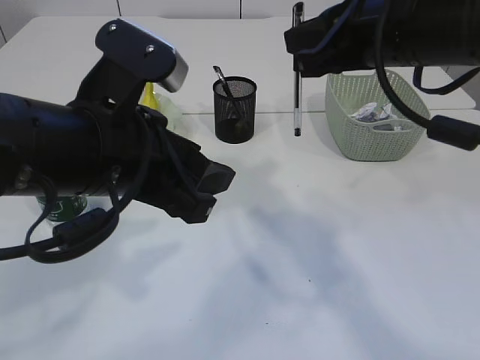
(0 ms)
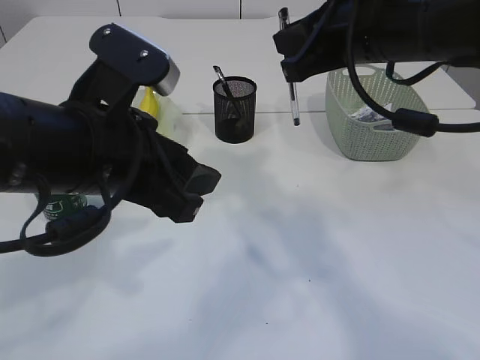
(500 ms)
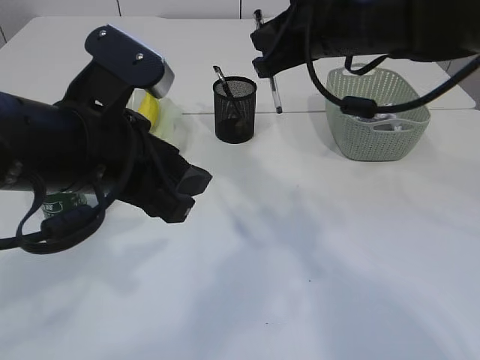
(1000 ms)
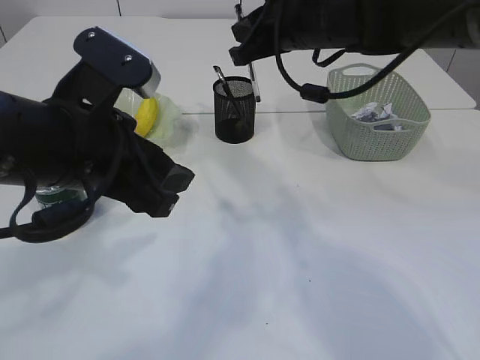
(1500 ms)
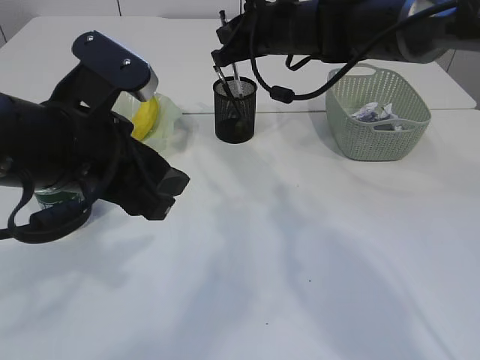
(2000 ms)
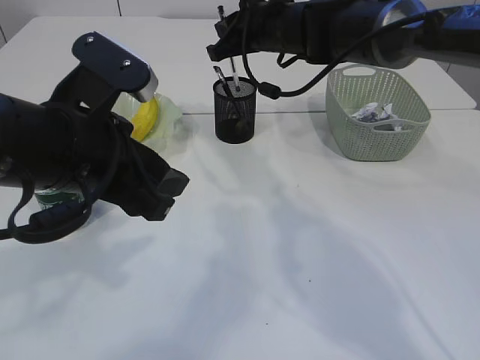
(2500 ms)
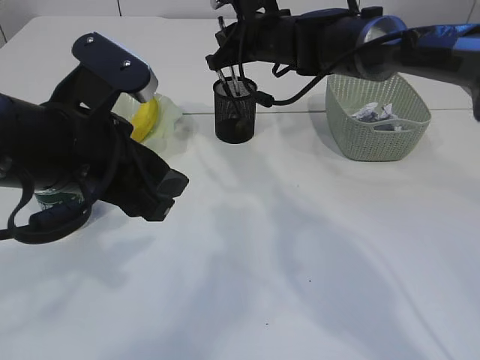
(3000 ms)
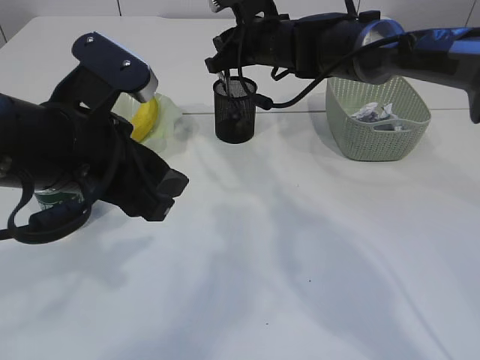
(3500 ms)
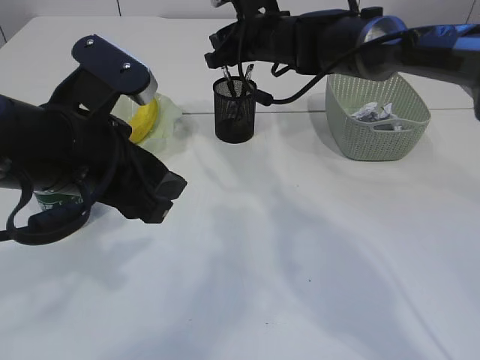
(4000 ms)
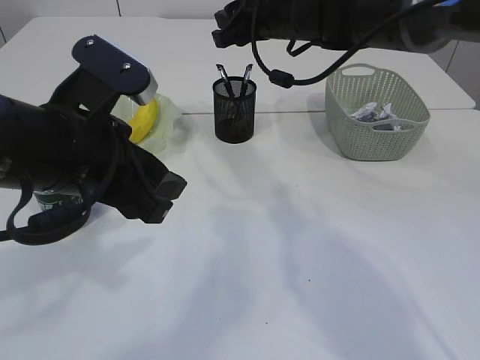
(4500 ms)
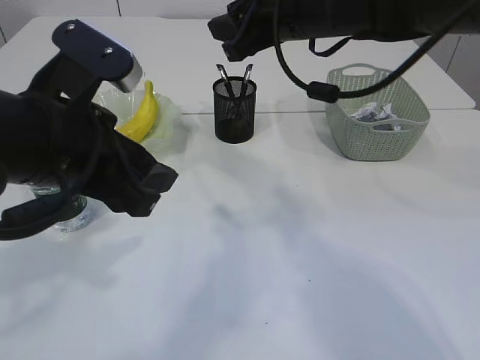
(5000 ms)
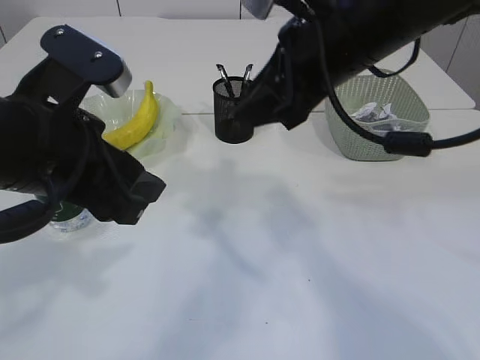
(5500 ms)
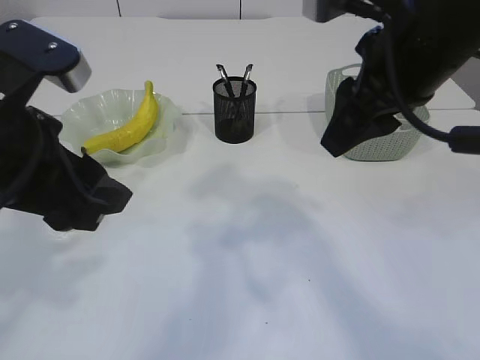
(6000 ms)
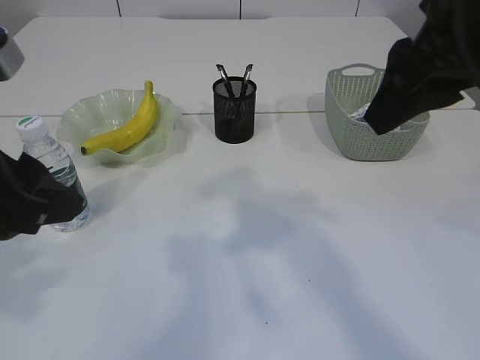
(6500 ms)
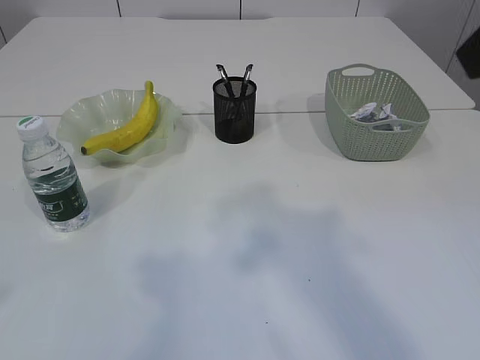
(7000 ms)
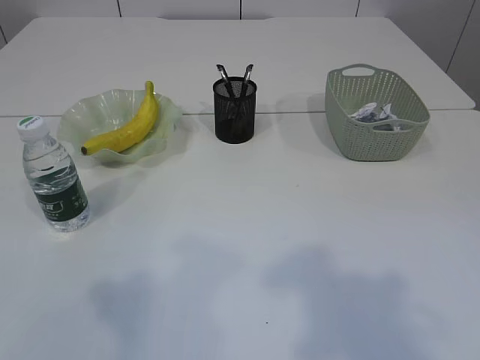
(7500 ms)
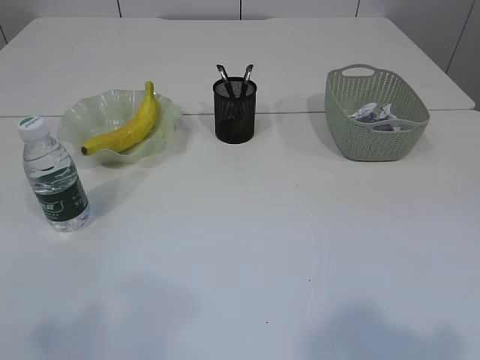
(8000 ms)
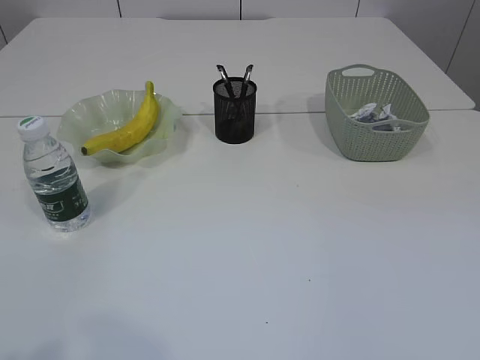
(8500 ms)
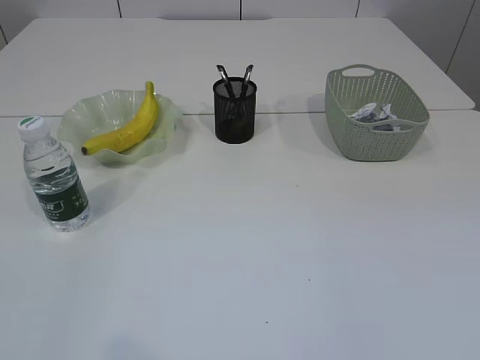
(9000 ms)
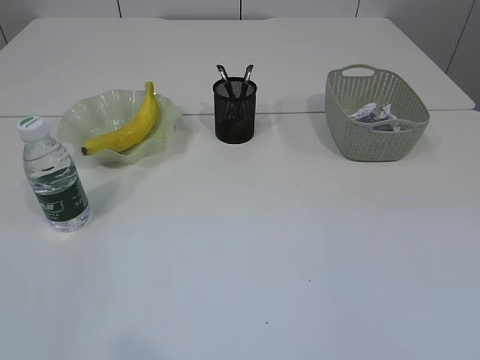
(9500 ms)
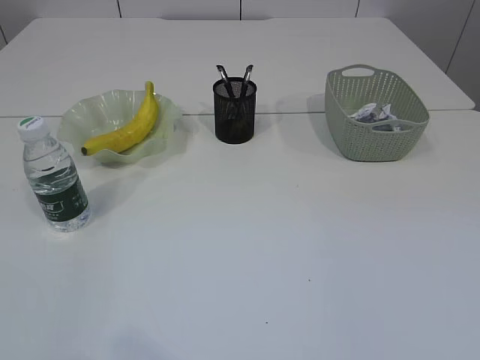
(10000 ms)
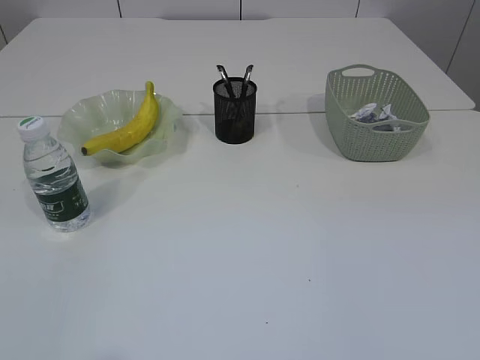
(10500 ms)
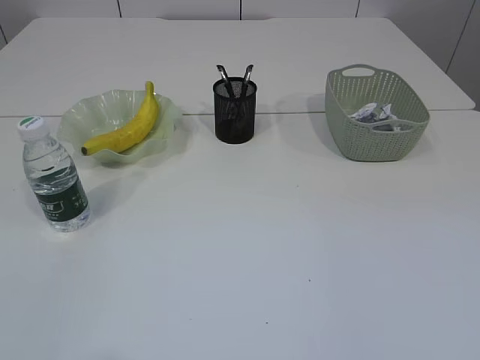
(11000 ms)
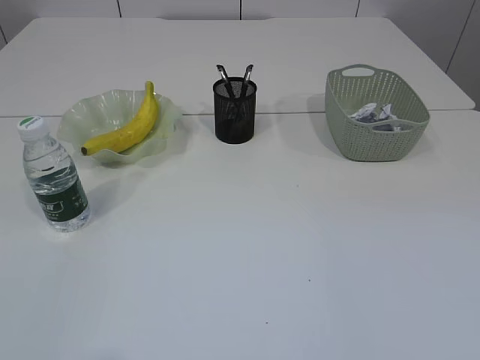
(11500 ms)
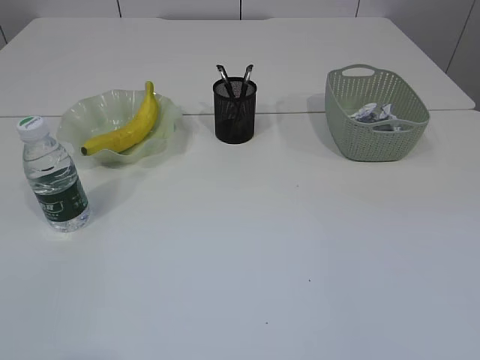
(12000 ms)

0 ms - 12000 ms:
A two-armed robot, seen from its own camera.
Step, 0 ms - 4000 ms: Place the pen into the pen holder.
0 ms - 2000 ms: The right gripper goes roughly 15 cm forward.
2000 ms - 4000 ms: The right gripper moves about 5 cm, and opens.
4000 ms - 6000 ms: The right gripper shifts roughly 25 cm backward and upward; the left gripper moves roughly 5 cm.
6000 ms - 8000 ms: The left gripper shifts some 20 cm backward and to the left. Meanwhile the right gripper is displaced backward and to the right by about 25 cm.

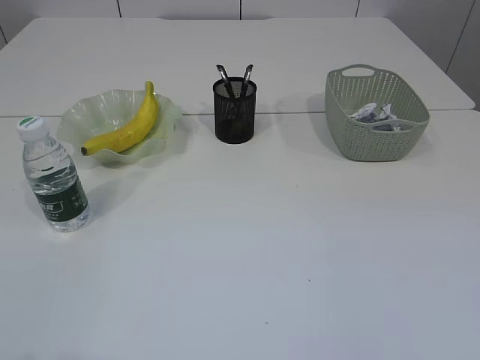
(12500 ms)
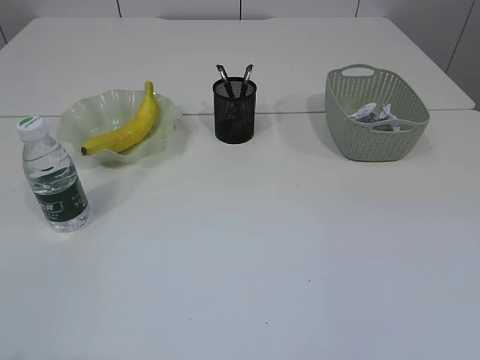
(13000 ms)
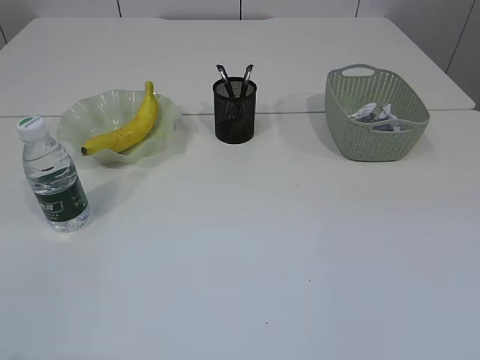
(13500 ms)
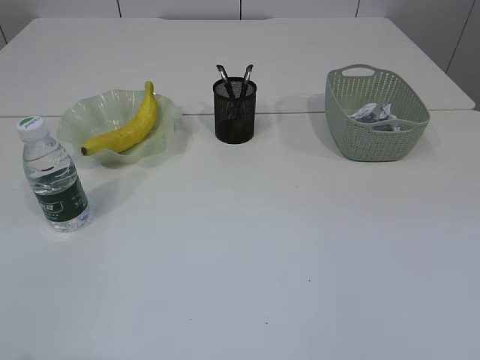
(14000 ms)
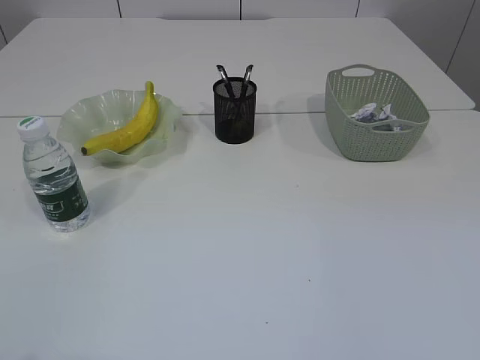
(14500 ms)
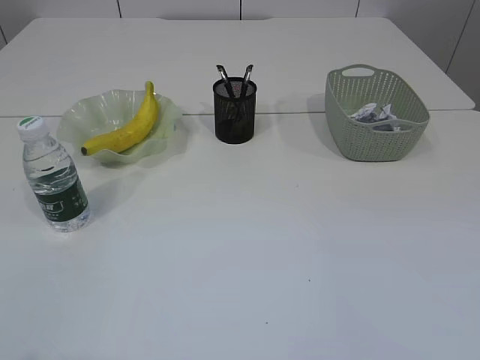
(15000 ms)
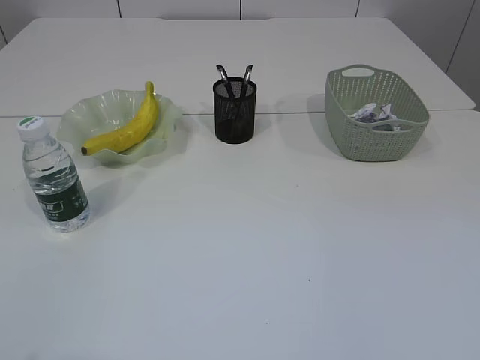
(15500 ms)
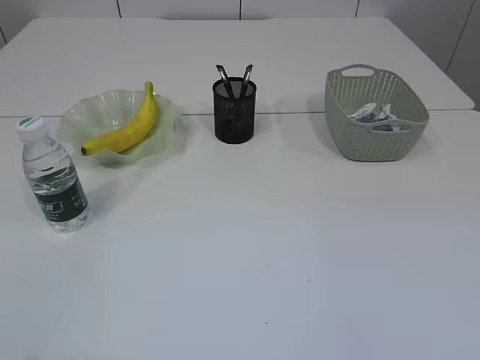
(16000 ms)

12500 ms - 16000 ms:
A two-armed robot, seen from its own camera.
14500 ms - 16000 ms: The two grippers keep their place.

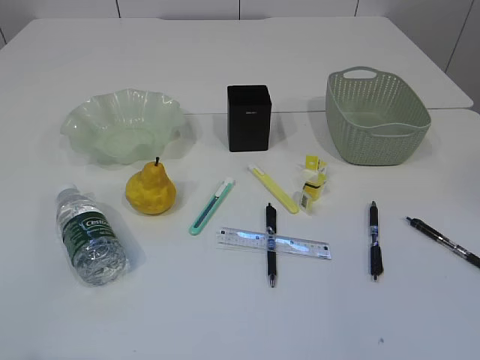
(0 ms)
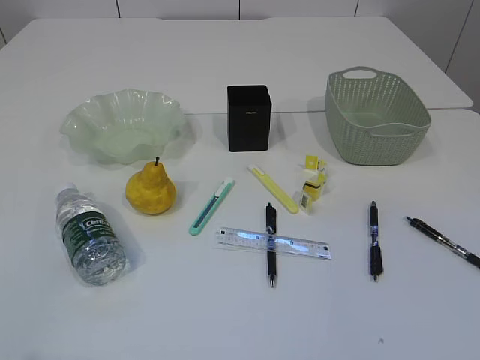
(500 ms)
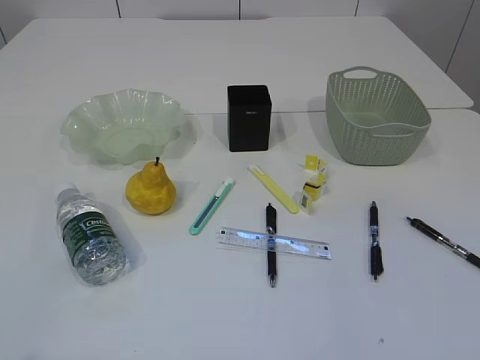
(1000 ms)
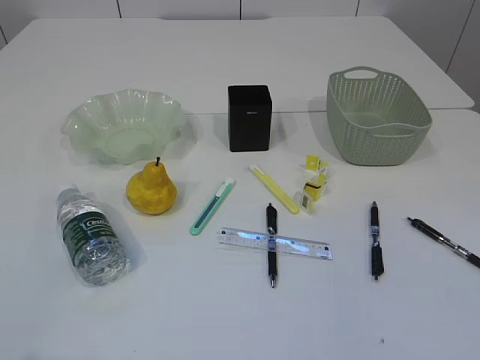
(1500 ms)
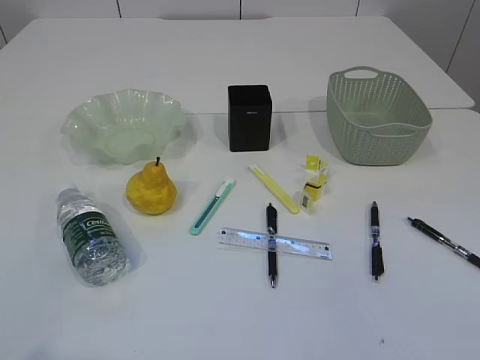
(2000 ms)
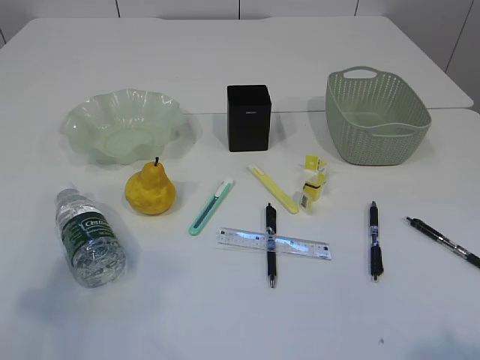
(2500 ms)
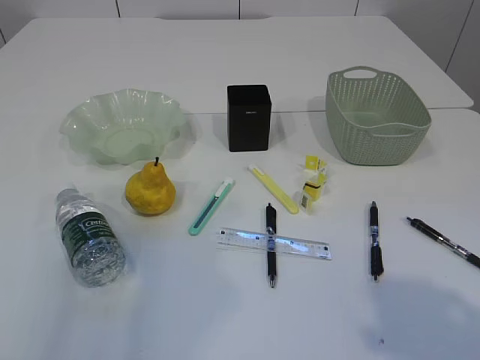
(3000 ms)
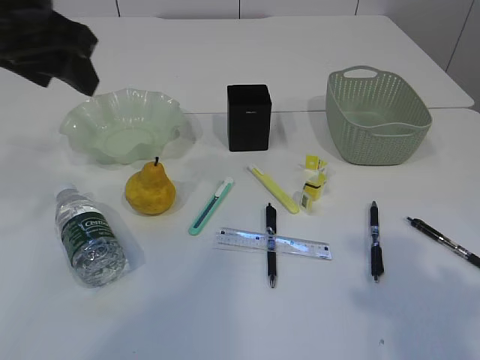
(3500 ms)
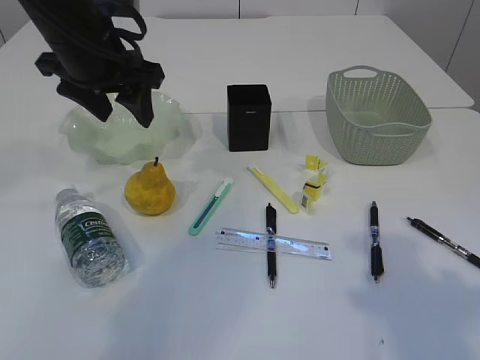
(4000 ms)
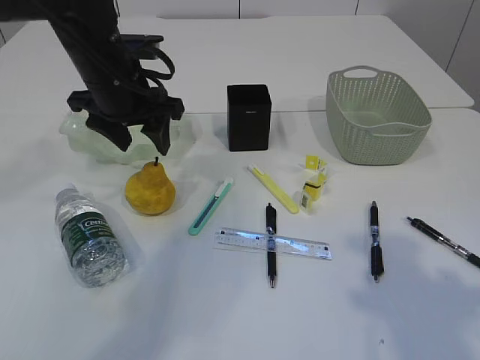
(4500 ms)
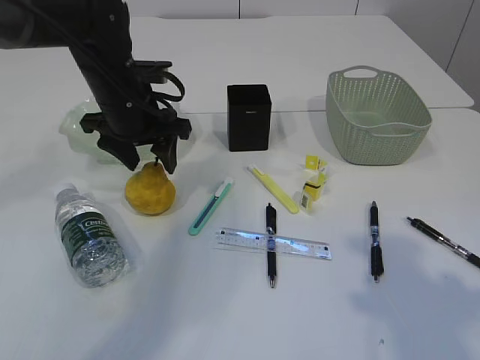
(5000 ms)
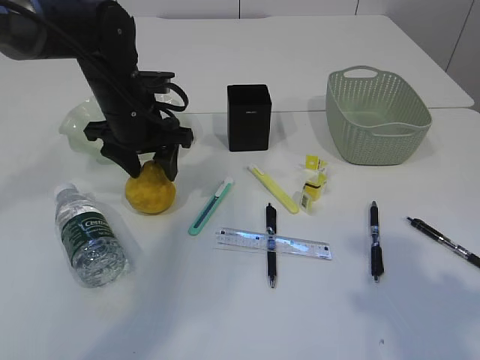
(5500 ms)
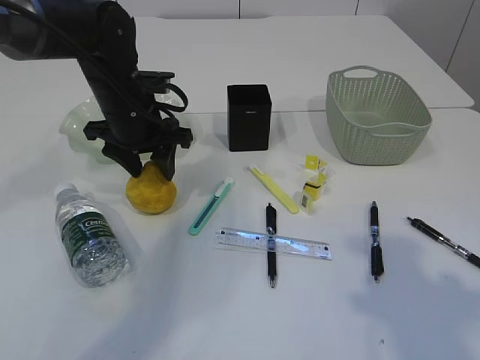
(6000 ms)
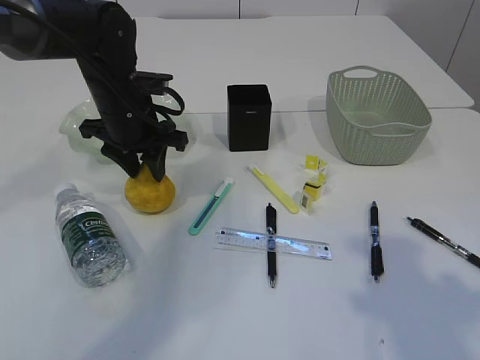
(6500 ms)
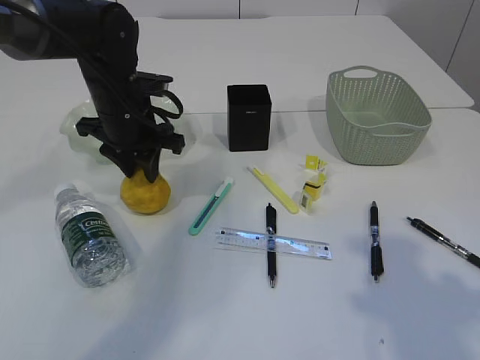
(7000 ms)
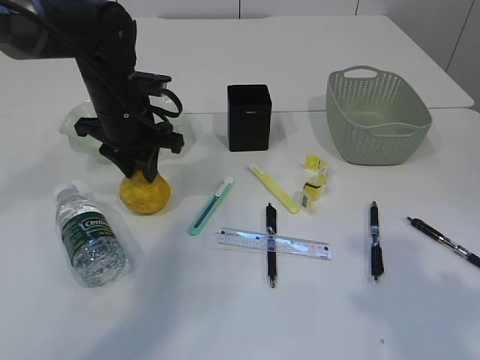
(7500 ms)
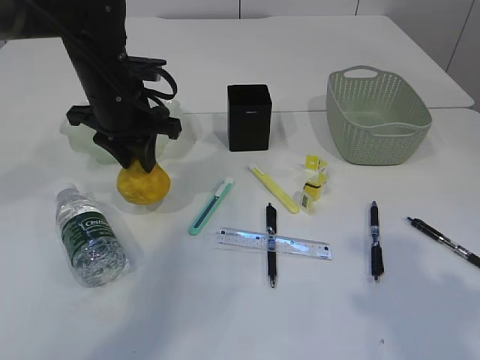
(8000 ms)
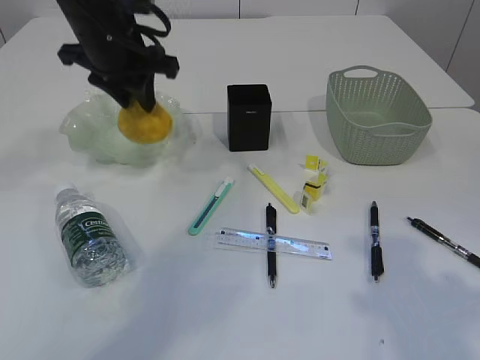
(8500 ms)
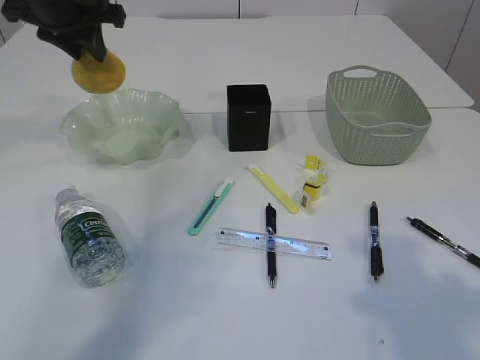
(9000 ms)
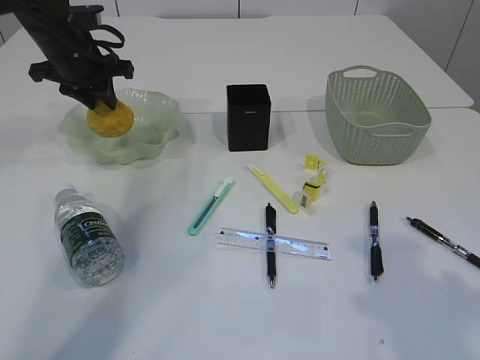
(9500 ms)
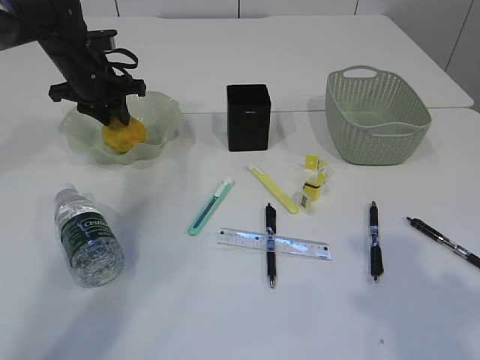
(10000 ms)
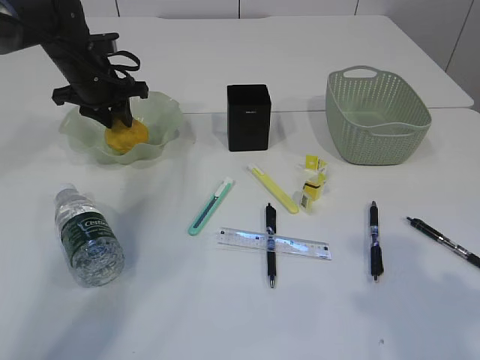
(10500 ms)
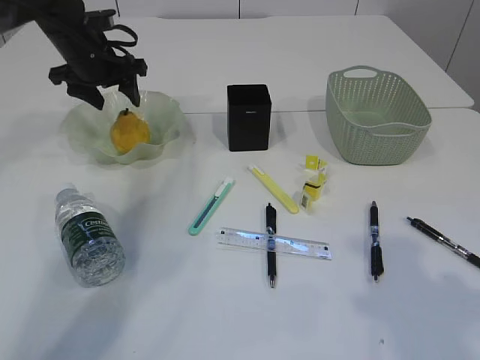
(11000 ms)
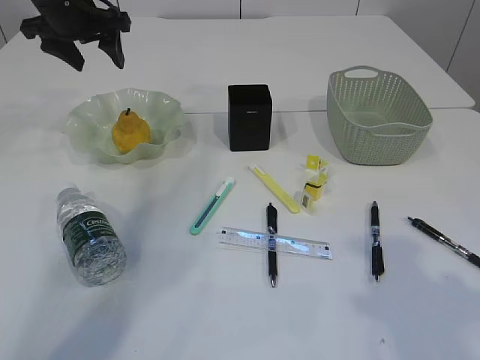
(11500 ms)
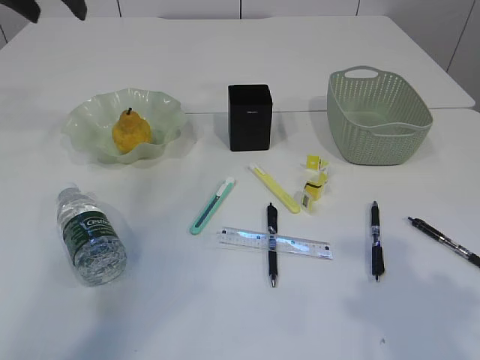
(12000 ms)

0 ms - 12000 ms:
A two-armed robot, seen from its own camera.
Step, 8500 ms - 11500 ms: Place the pear in the plate.
2000 ms - 4000 ms: The left gripper moves forward and to the right, about 40 cm. Meanwhile the right gripper shifts roughly 15 cm forward.
4000 ms - 6000 ms: The left gripper heads downward, covering some 10 cm.
6000 ms - 8000 ms: The left gripper closes.
8000 ms - 10000 ms: The left gripper moves forward and to the left, about 15 cm, and moves approximately 10 cm upward and comes back.
10000 ms - 12000 ms: The left gripper moves upward, some 20 cm, and opens its fingers.
